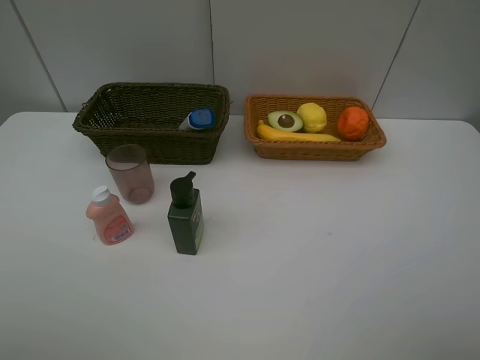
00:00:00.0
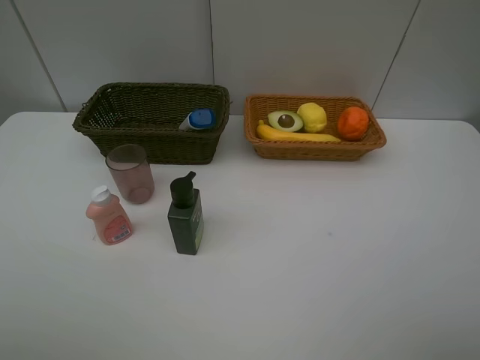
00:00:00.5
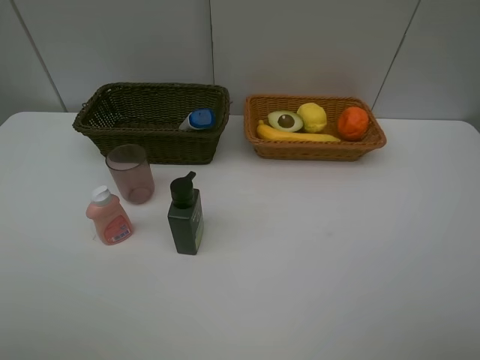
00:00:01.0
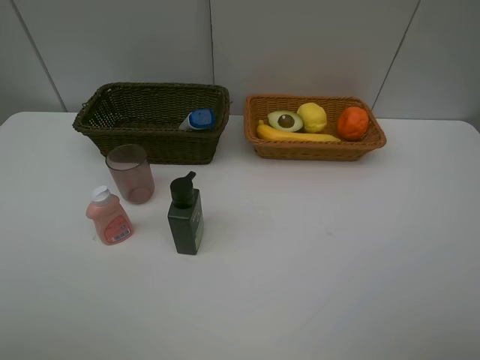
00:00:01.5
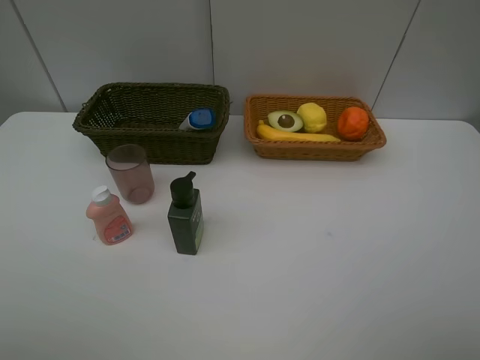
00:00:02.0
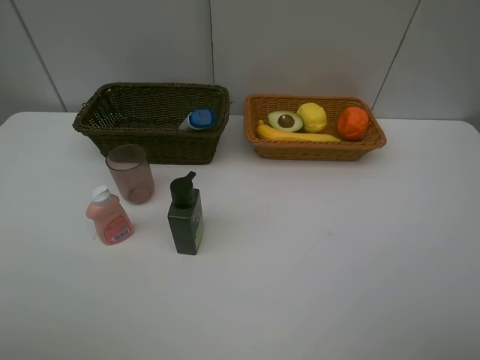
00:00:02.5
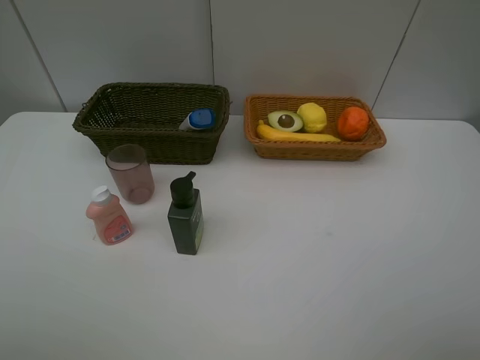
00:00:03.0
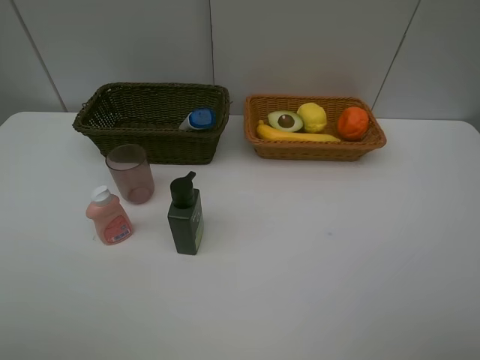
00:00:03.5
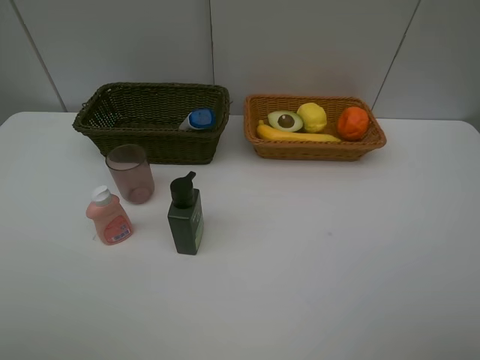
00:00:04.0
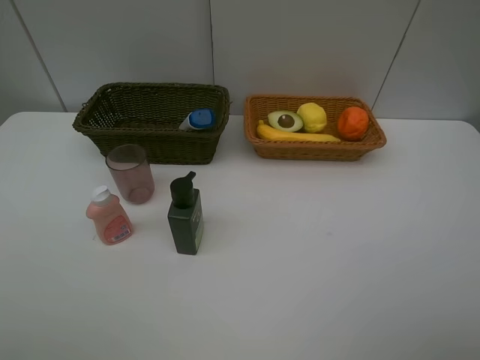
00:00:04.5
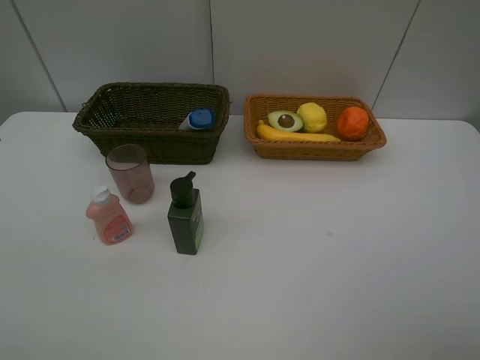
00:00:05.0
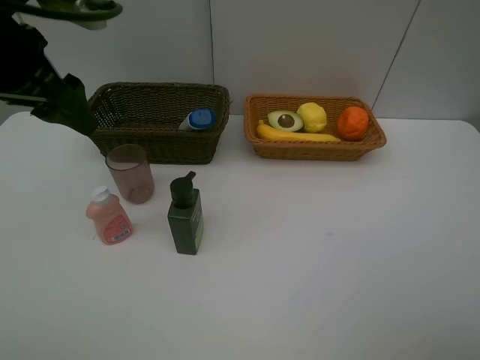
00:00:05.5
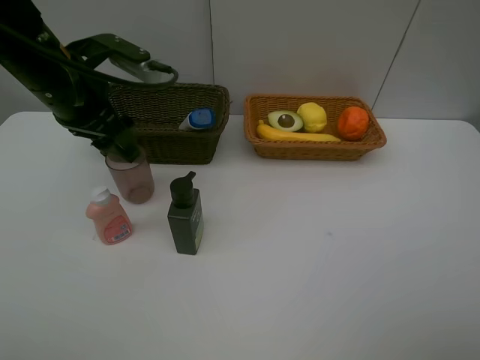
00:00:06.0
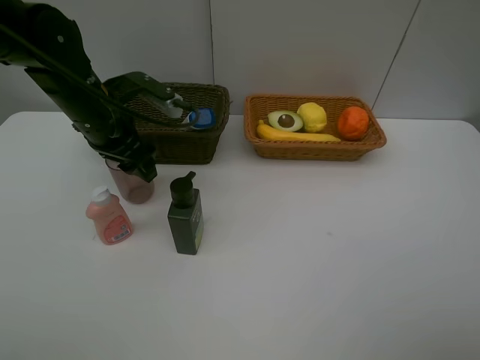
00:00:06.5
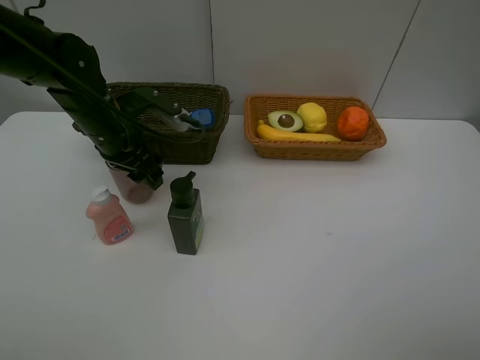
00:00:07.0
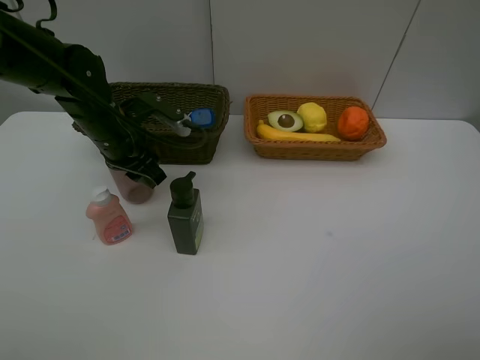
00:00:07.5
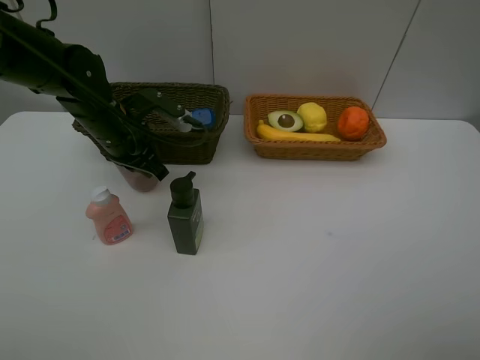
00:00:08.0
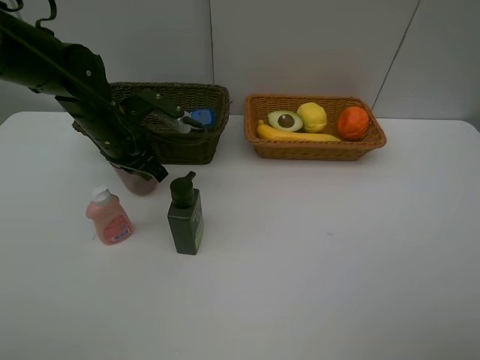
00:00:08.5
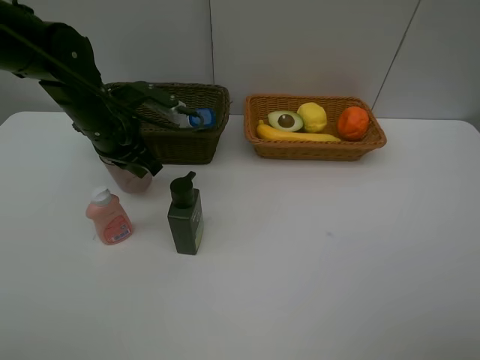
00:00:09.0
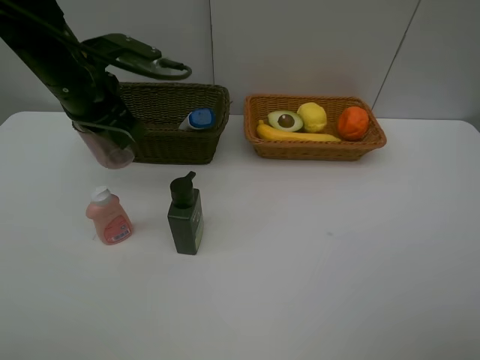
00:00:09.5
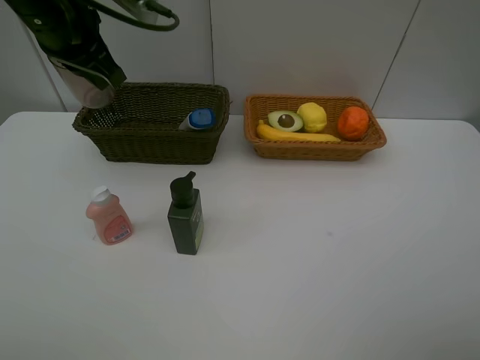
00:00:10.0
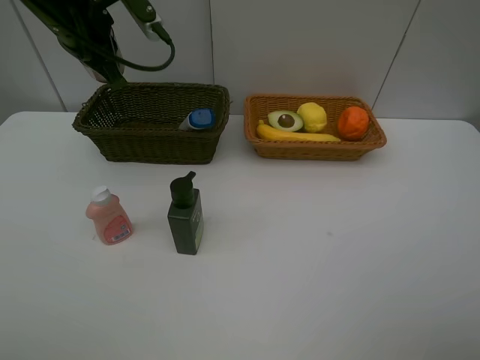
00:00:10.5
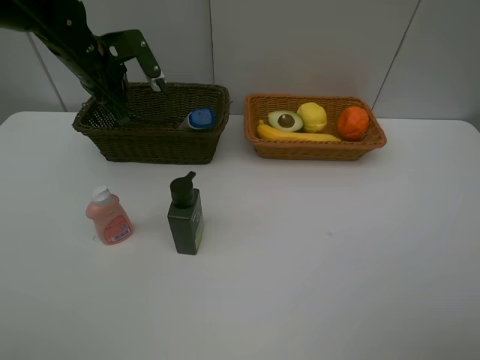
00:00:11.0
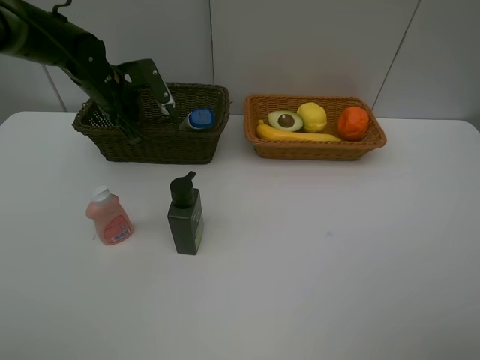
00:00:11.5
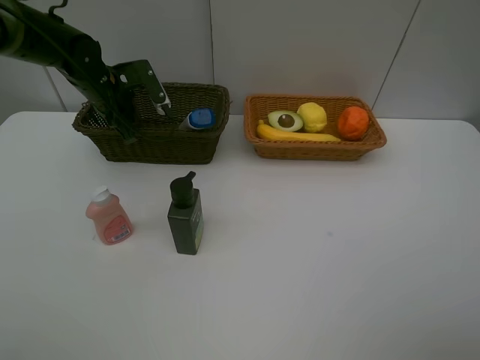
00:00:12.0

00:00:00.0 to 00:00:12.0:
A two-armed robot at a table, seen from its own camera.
Task of the whole recording: Place multiple objects separately in different baskets.
Step, 00:00:00.0 to 00:00:08.5: Pick up the red cup with left gripper.
00:00:02.0 to 00:00:04.0: Neither gripper changes place.
00:00:04.0 to 00:00:06.0: The left gripper travels forward by roughly 30 cm.
00:00:06.0 to 00:00:08.0: The left gripper moves downward, roughly 10 cm, and closes up.
00:00:08.0 to 00:00:10.0: The left gripper travels upward by some 15 cm.
00:00:10.0 to 00:00:12.0: The left gripper heads downward and forward, covering approximately 20 cm.

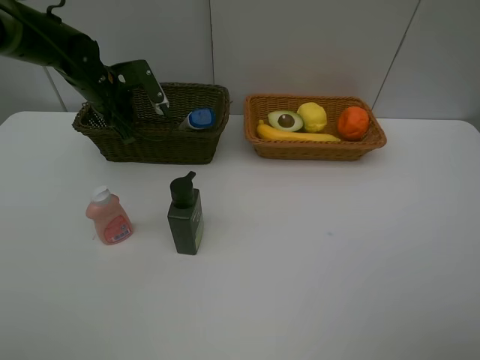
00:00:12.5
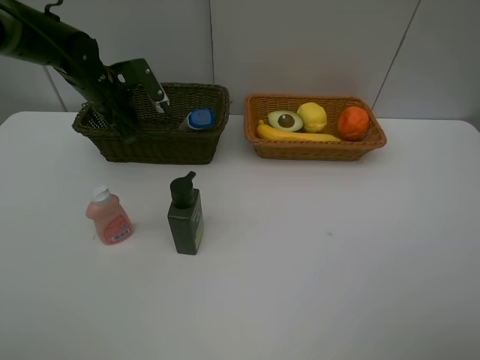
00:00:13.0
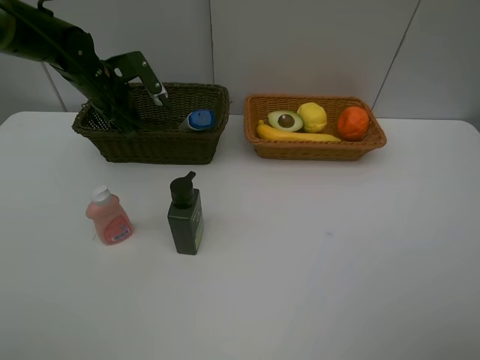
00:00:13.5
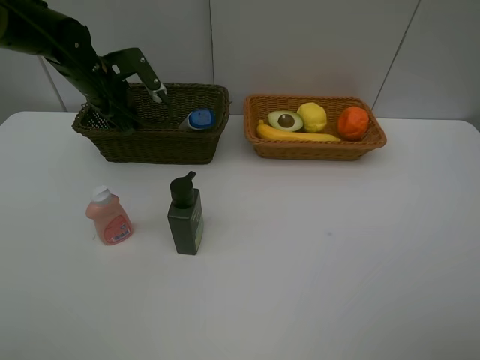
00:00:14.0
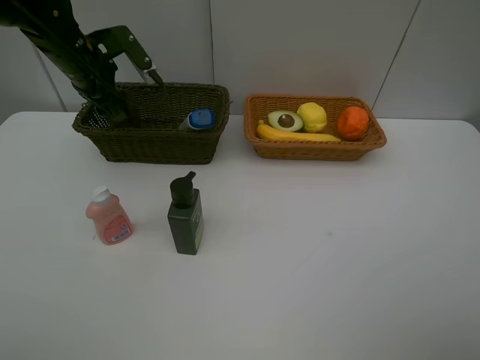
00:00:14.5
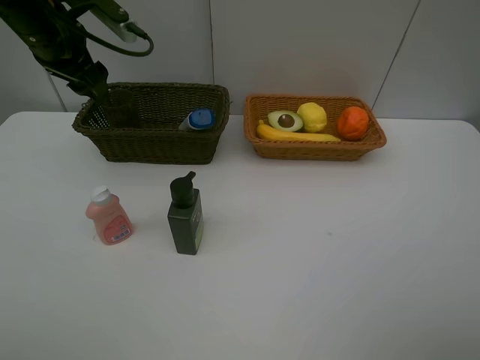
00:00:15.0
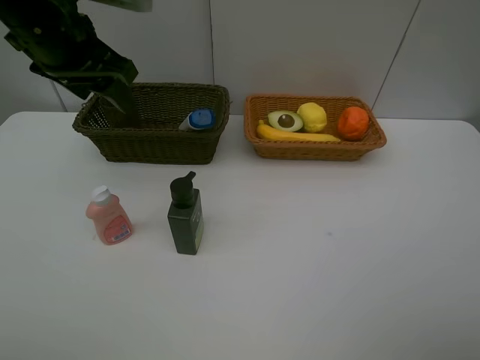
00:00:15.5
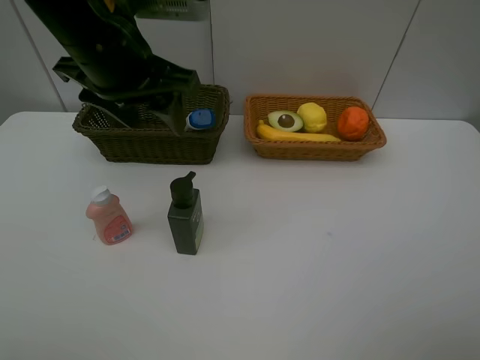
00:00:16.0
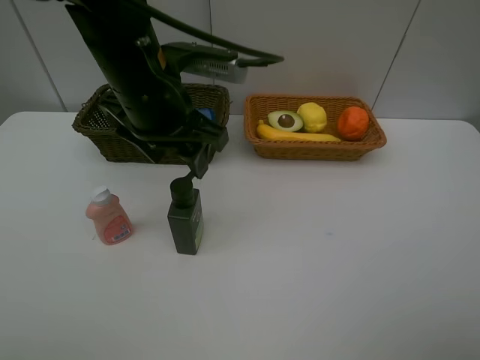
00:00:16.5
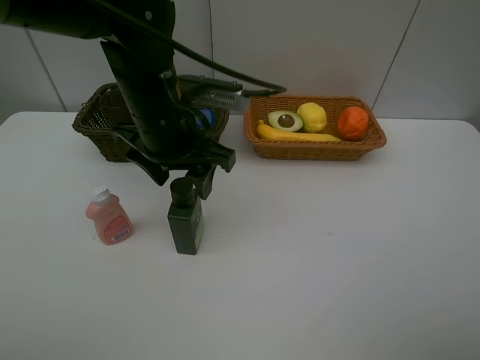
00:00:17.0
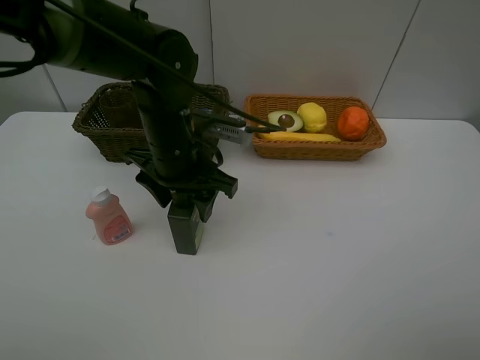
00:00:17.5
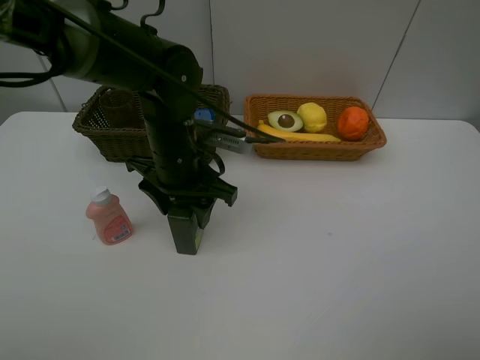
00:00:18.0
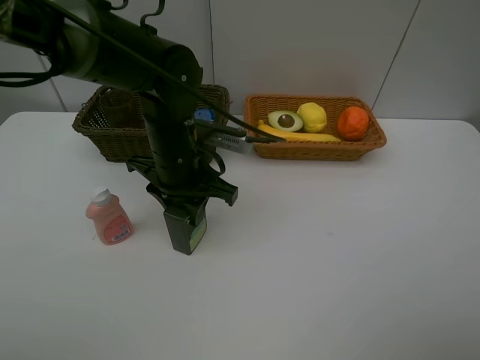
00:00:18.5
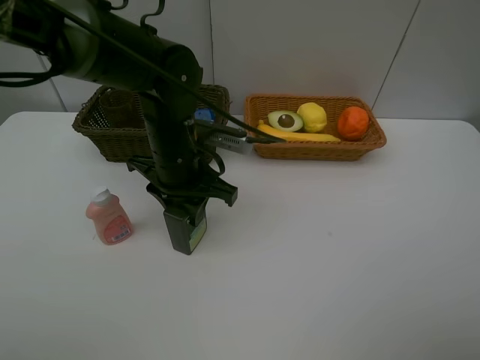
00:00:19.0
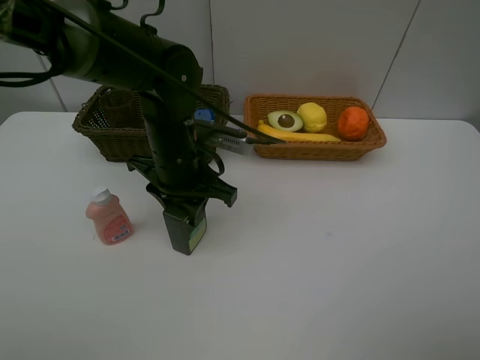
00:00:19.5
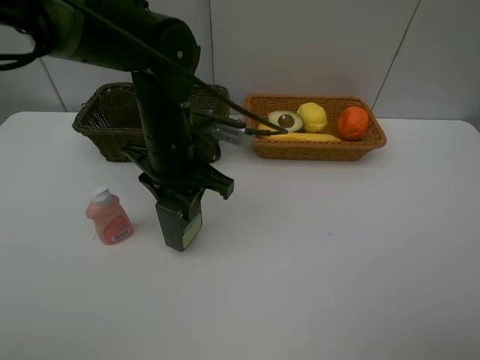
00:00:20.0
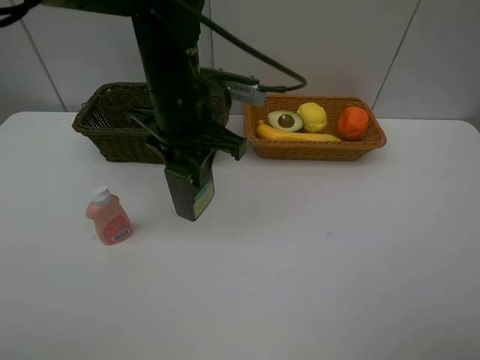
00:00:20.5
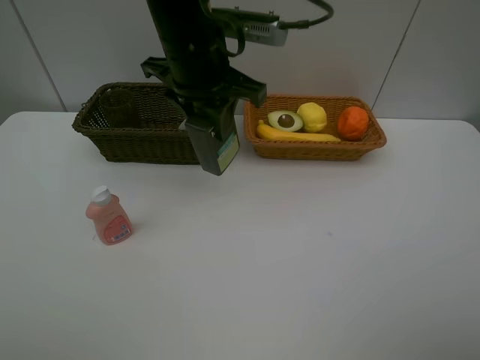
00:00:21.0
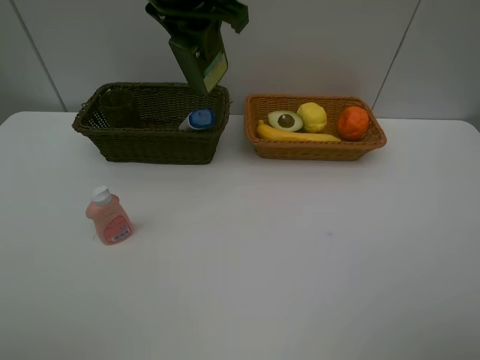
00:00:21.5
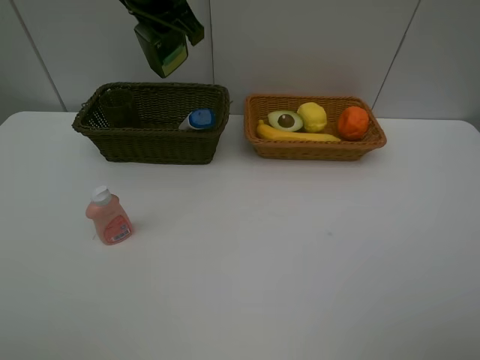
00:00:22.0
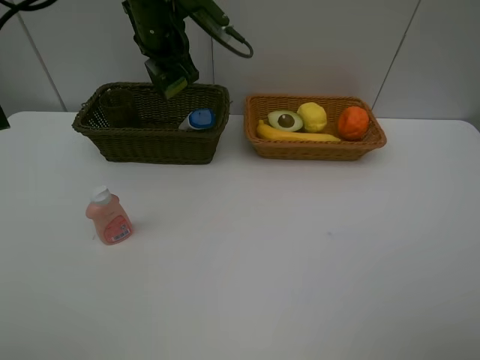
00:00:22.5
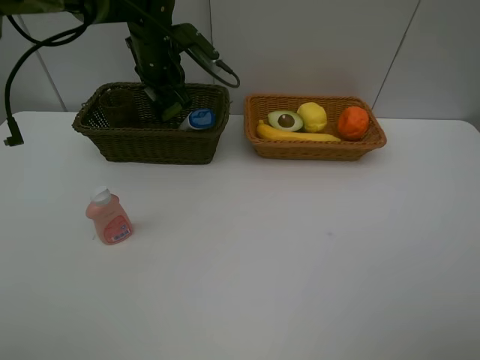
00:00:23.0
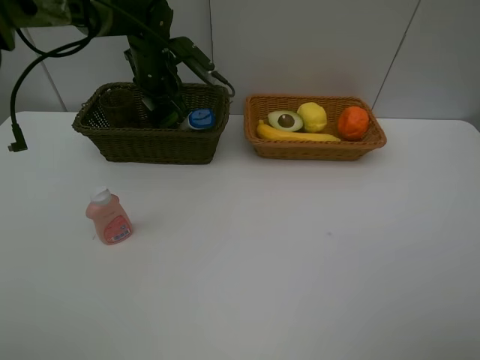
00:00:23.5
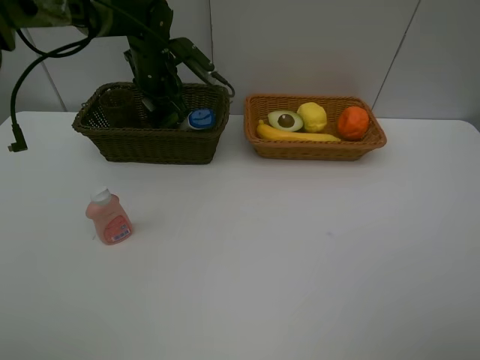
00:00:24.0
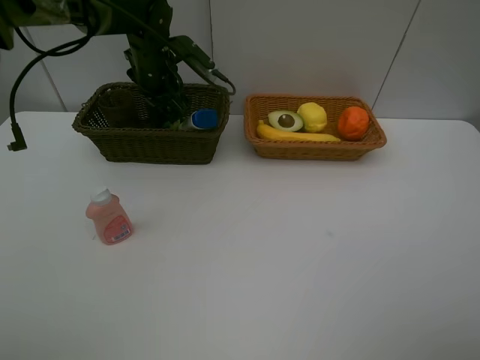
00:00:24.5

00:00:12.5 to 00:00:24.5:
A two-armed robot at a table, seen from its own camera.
Task of the whole recording: Place multiple objects separately in different baskets.
Step, 00:00:14.5 to 00:00:20.0: Pick up the hard facial cleanser with left gripper.
00:00:12.5 to 00:00:14.5: The left gripper shifts some 5 cm upward, and opens its fingers.
00:00:14.5 to 00:00:16.5: The left gripper travels backward and to the right by about 20 cm.
00:00:16.5 to 00:00:18.5: The left gripper goes approximately 10 cm downward, and closes up.
00:00:18.5 to 00:00:20.5: The left gripper is displaced upward by about 10 cm.
00:00:20.5 to 00:00:22.5: The left gripper is displaced forward by some 15 cm.
00:00:22.5 to 00:00:24.5: The left gripper shifts about 5 cm downward, and opens.

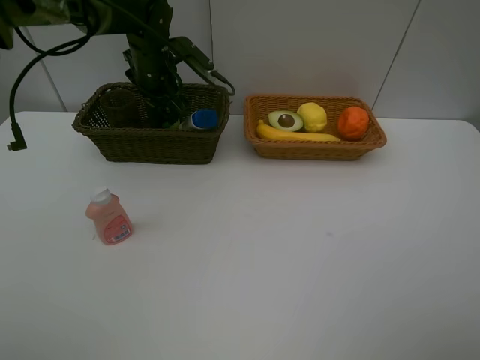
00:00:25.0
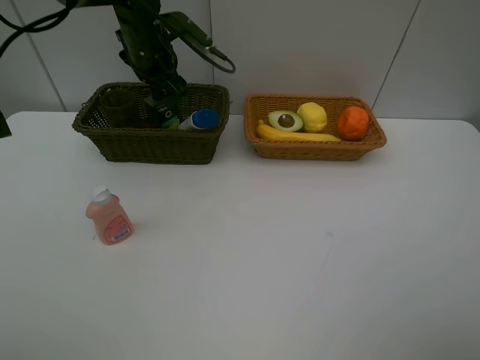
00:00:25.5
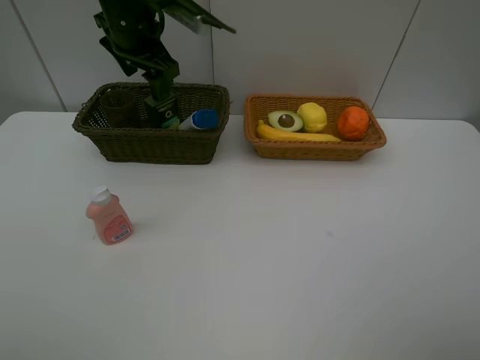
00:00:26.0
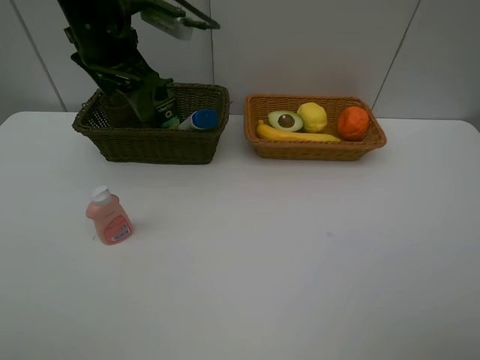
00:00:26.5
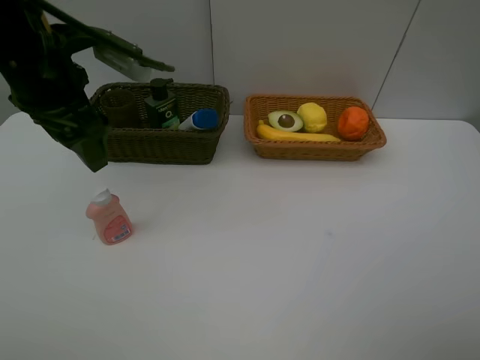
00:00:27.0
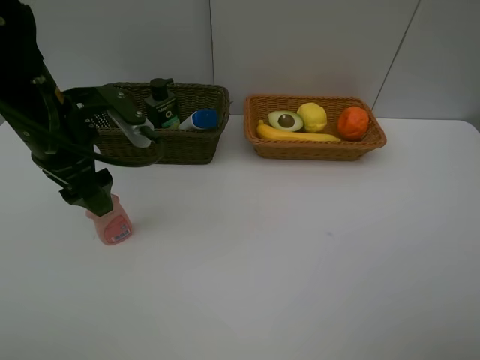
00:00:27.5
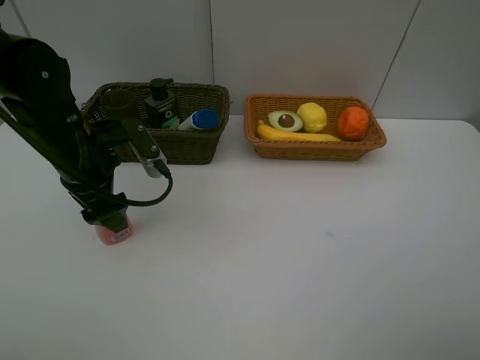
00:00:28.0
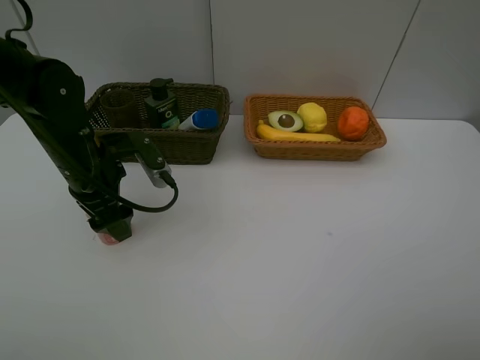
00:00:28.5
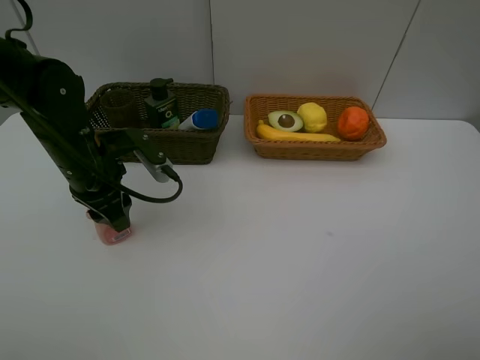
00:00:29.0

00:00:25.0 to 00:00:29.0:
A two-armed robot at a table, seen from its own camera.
Task of the whole recording: Place multiple objects separately in different baskets.
00:00:25.0 to 00:00:27.0: The left gripper is displaced backward and upward by about 20 cm.
00:00:27.0 to 00:00:29.0: The left gripper heads downward, covering roughly 15 cm, and closes its fingers.
